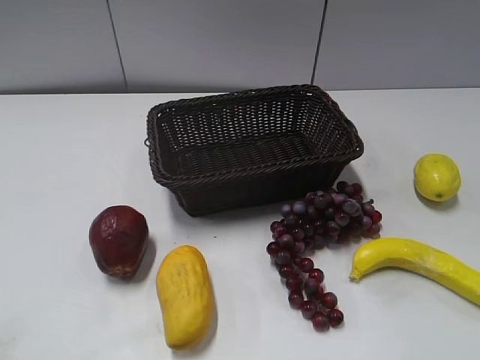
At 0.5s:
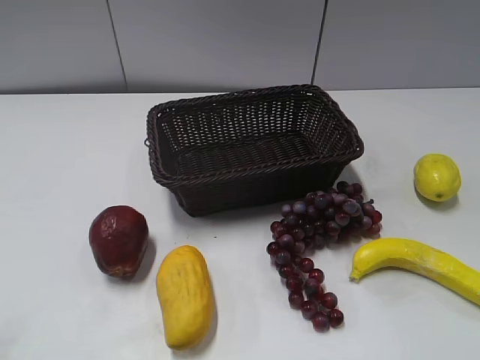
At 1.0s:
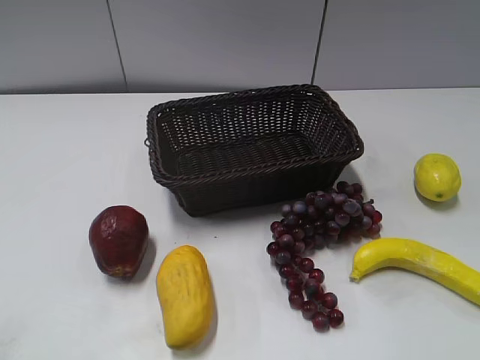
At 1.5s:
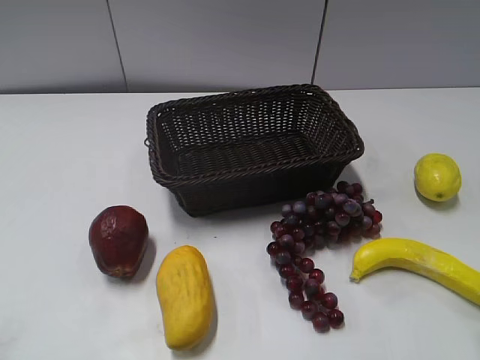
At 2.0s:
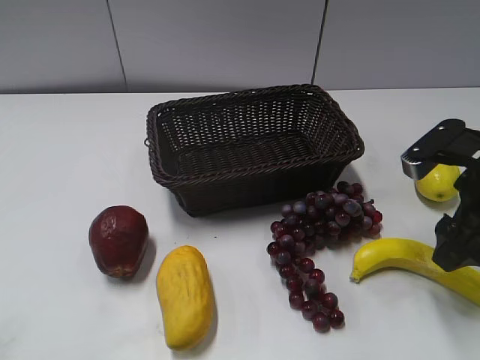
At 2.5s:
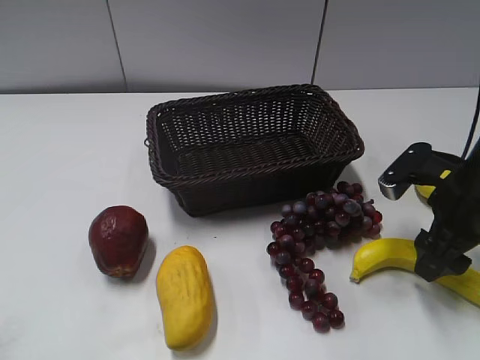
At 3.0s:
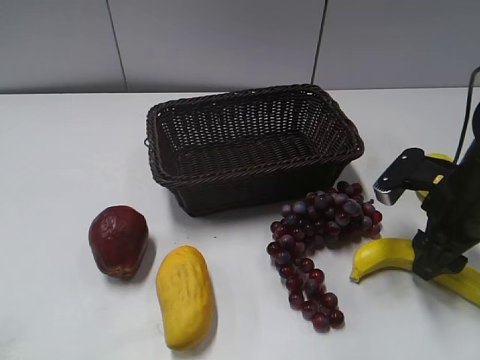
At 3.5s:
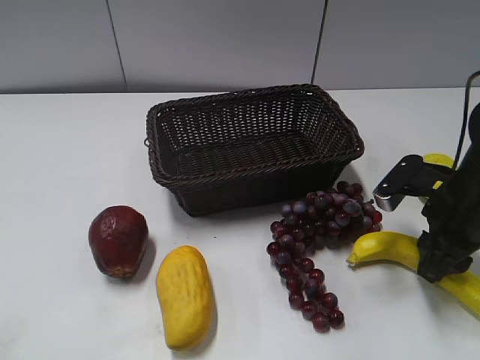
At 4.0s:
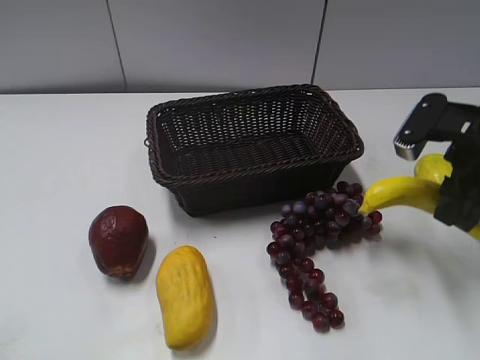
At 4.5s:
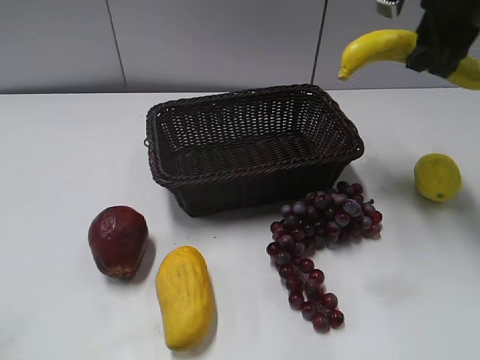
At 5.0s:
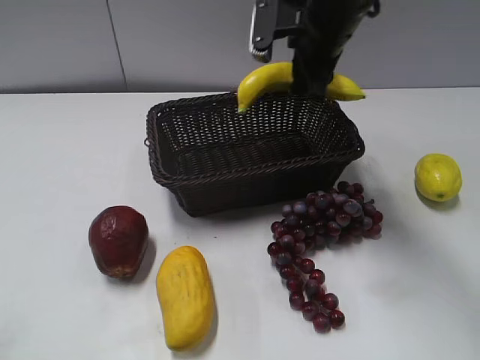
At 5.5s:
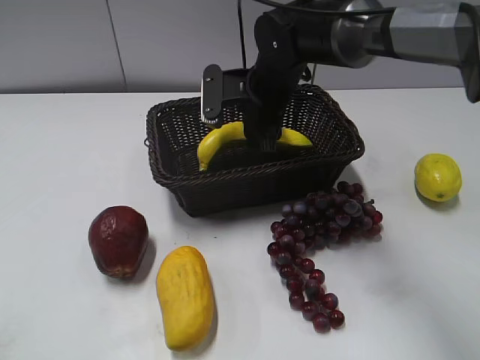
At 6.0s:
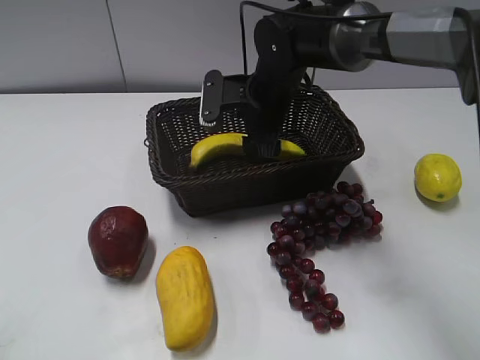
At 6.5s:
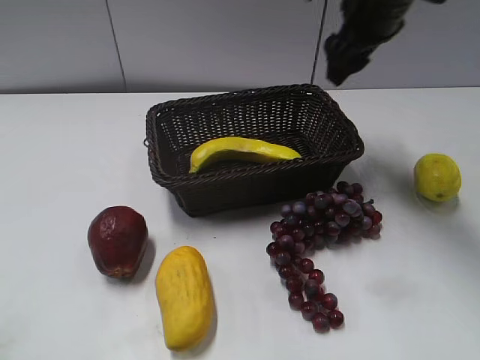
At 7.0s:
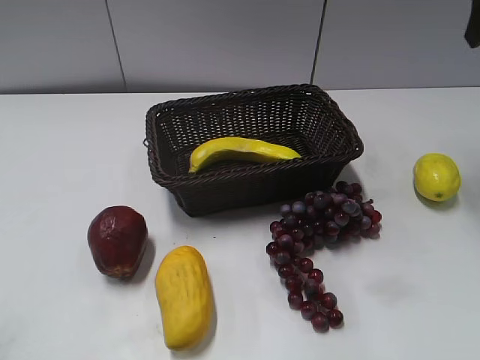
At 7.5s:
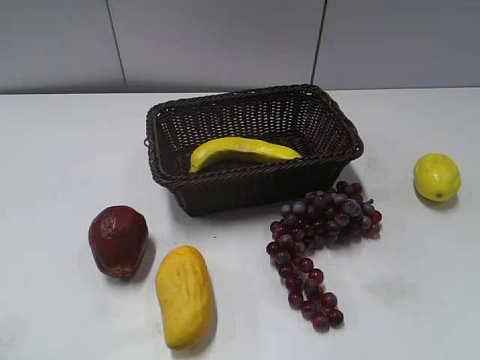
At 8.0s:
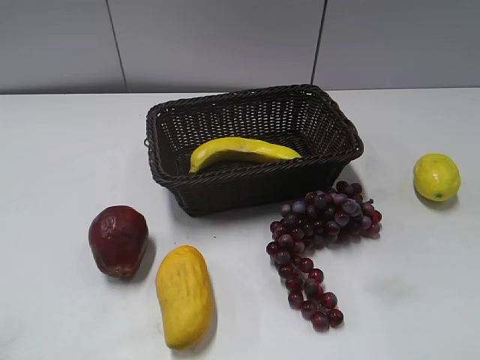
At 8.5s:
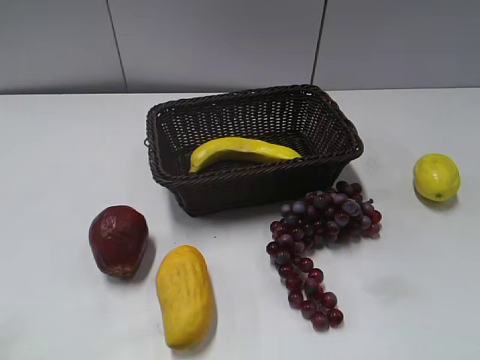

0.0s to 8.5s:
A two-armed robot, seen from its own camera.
Step, 2.0s to 3.0s: Grasp the banana with right gripper.
Step, 3.5s to 6.0s: Place the banana in the basket with right gripper.
2.0s to 4.0s: The right gripper reaches about 5 cm downward, then returns, and closes its fingers.
4.0s to 6.5s: The right gripper travels forward, to the left and upward by roughly 20 cm, and opens.
6.5s to 8.5s: The right gripper travels backward by about 40 cm.

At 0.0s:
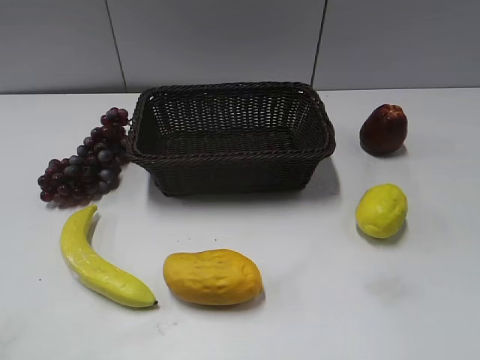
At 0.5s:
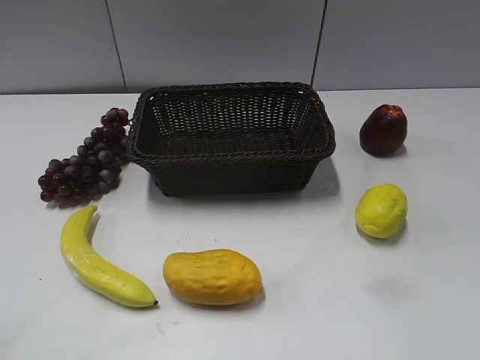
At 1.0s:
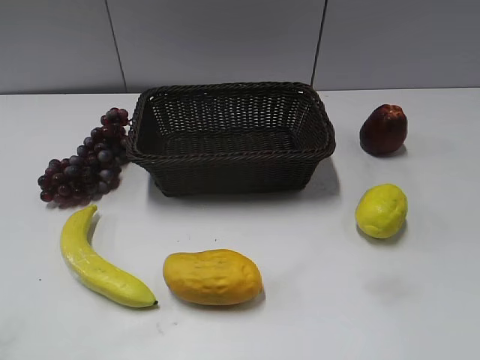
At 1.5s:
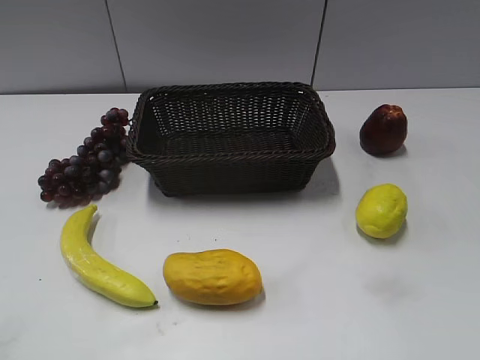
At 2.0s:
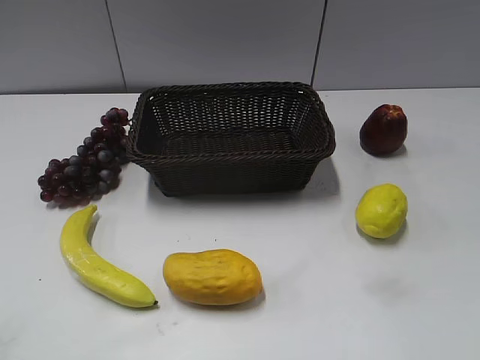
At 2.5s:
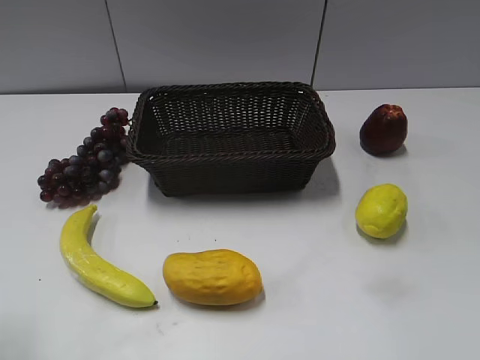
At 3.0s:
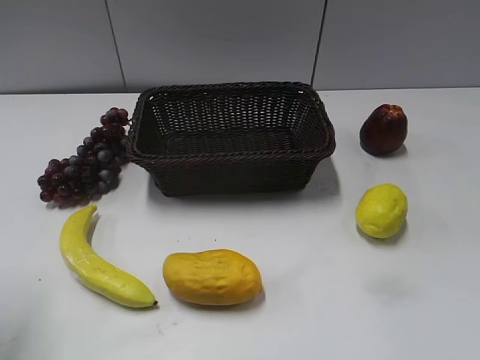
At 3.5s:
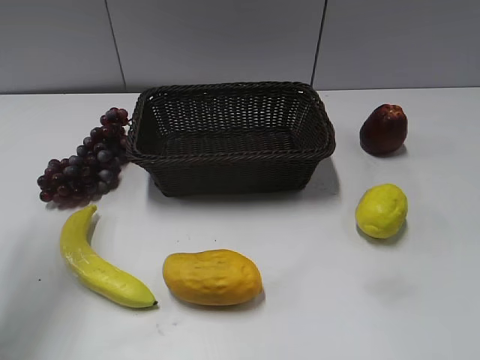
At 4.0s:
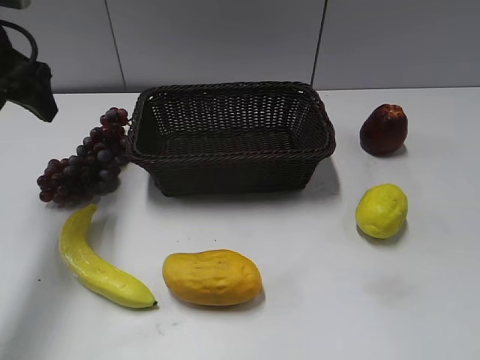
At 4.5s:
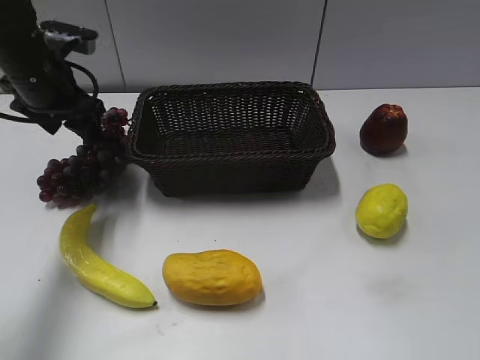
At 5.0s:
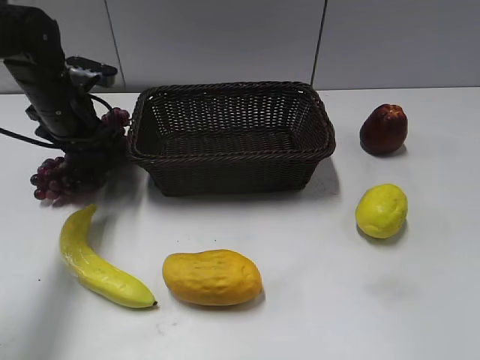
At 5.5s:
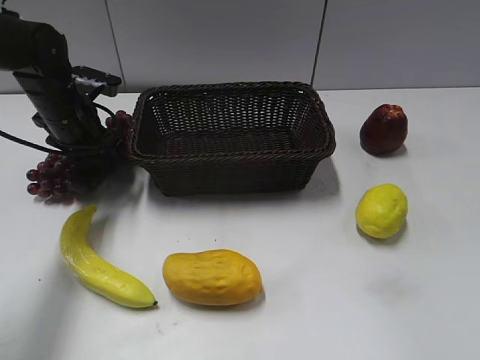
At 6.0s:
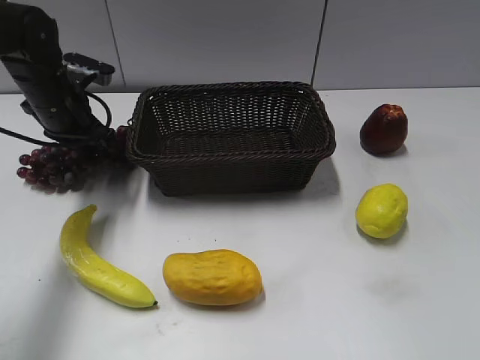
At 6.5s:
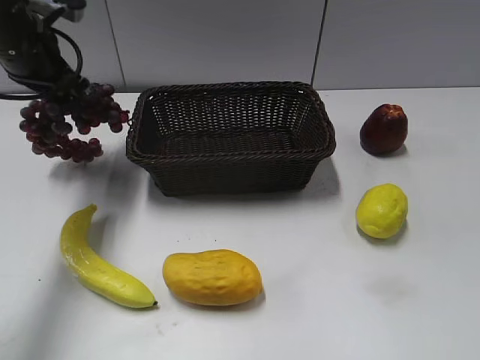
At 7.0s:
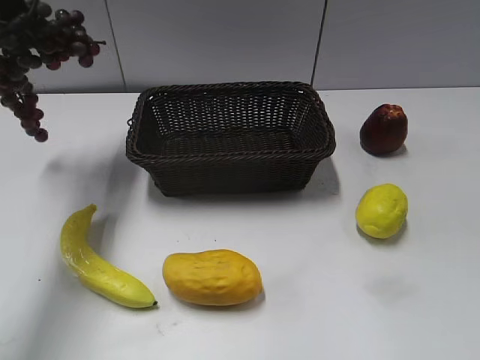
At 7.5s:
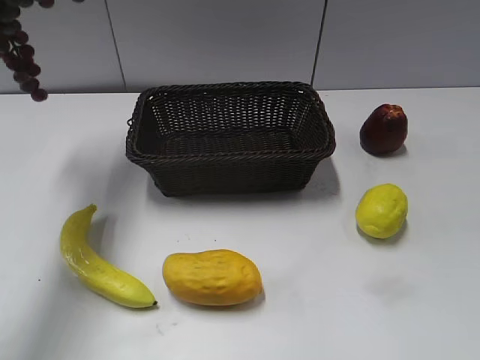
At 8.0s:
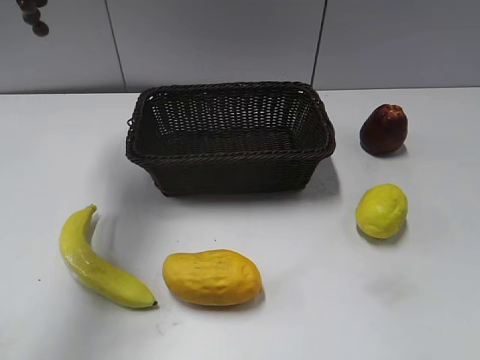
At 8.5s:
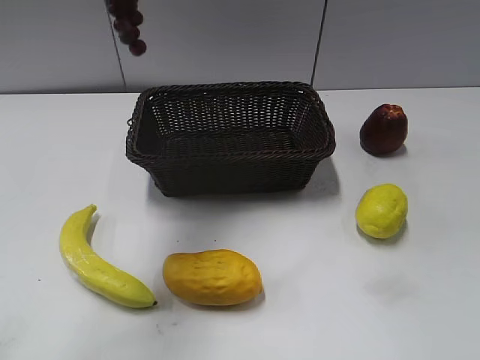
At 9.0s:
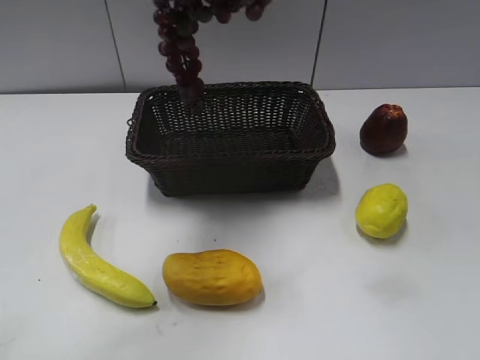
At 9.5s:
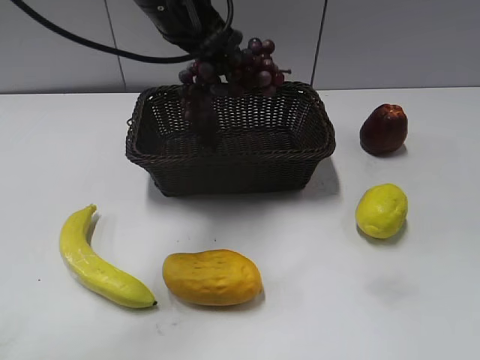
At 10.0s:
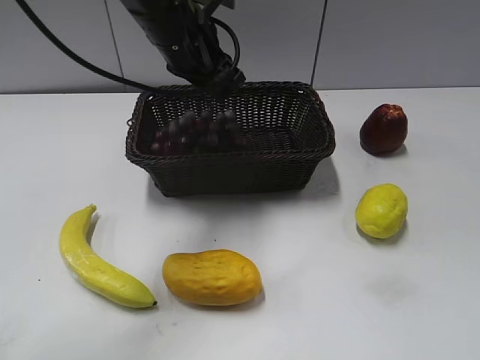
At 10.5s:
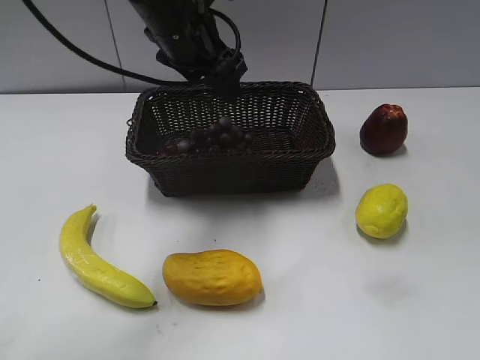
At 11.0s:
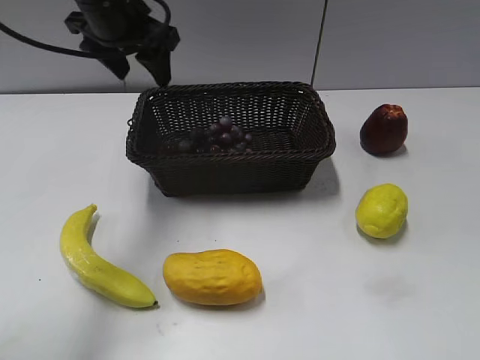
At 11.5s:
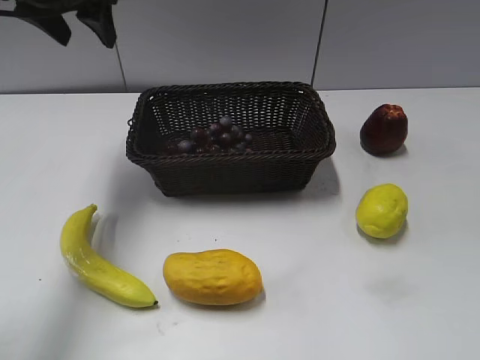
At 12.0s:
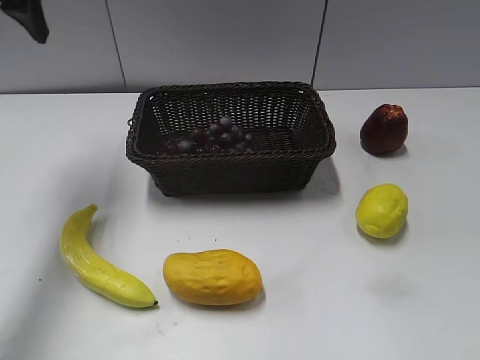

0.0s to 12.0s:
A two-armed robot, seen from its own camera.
Step, 4.0s to 5.5s: Grasp the grape with left gripper.
Step, 6.0s to 10.0s: Place the grape in the basket with left gripper.
2.0s to 4.0s: The left gripper is displaced forward by roughly 30 cm.
4.0s to 6.0s: The left gripper moves downward and forward, about 15 cm, and closes.
6.0s to 8.0s: The left gripper is displaced upward by approximately 30 cm.
8.0s to 10.0s: The left gripper heads downward and to the right, covering some 25 cm, and opens its fingers.
10.0s to 12.0s: The left gripper heads to the left and upward, covering about 20 cm, and opens its fingers.

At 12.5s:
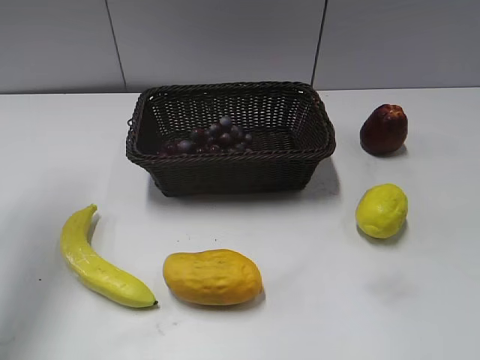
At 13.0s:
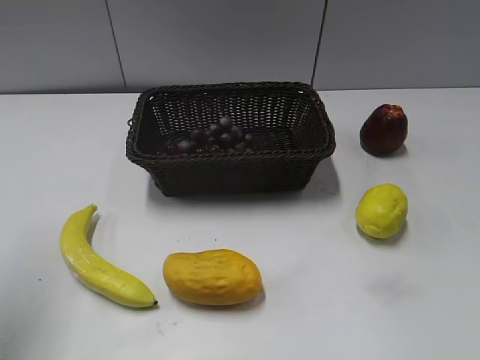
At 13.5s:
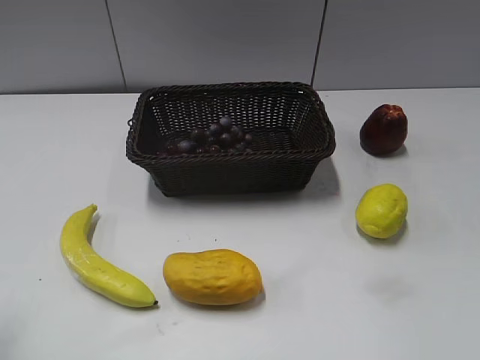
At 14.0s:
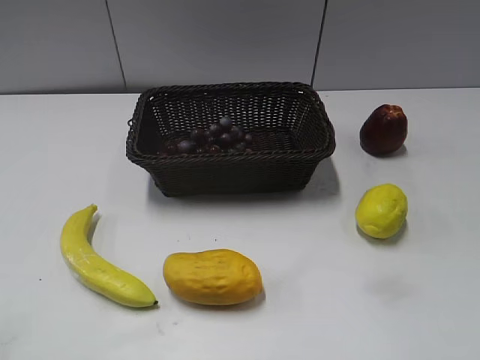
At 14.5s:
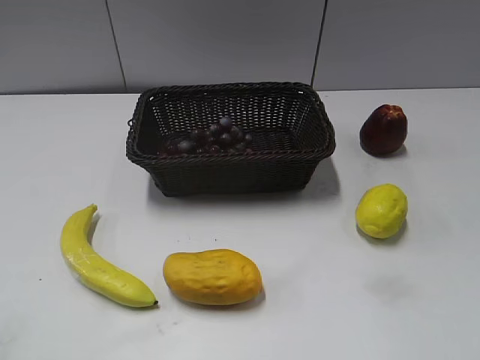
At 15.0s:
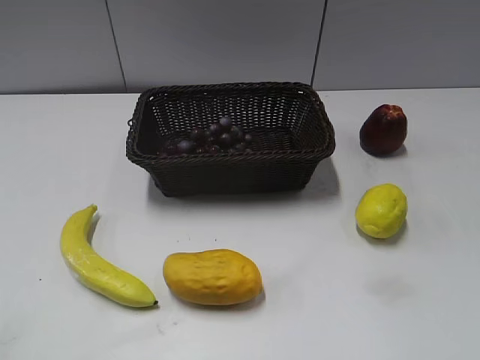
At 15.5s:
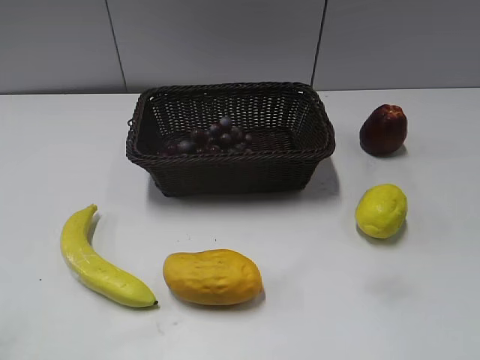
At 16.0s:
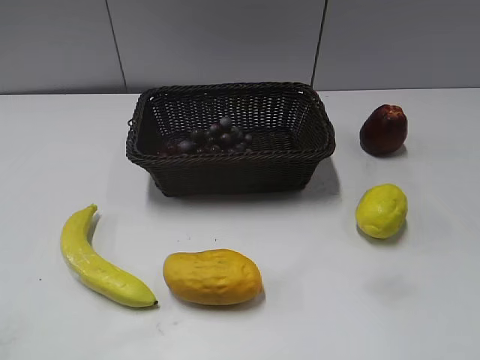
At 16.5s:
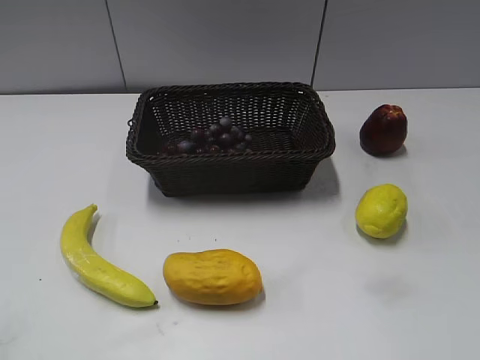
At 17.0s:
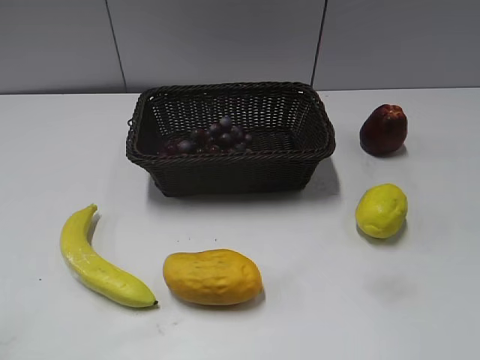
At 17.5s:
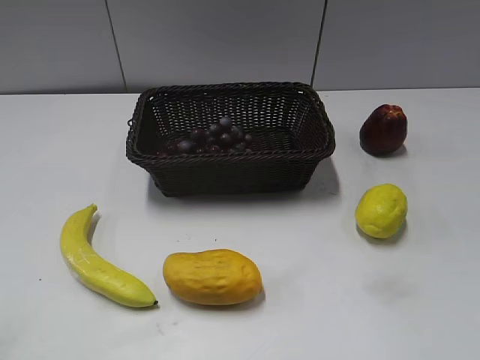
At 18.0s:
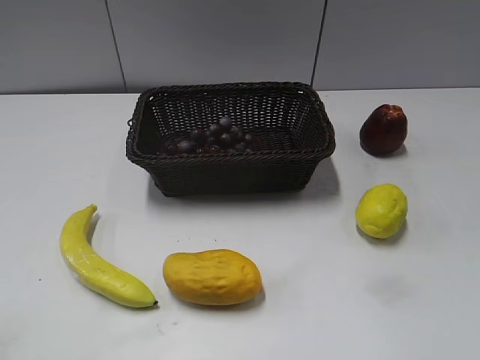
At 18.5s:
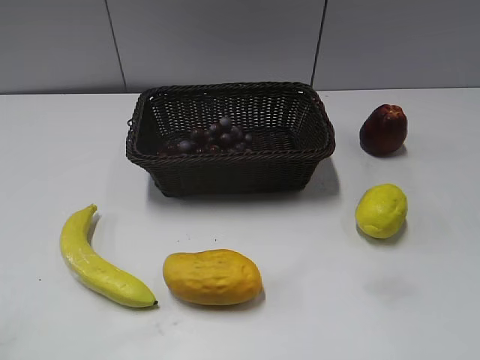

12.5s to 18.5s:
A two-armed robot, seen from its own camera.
12.5s to 14.5s: The left gripper heads backward, covering some 30 cm.
16.5s to 18.5s: Neither gripper changes place.
